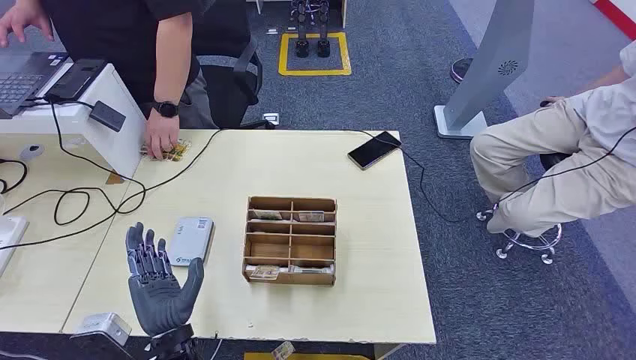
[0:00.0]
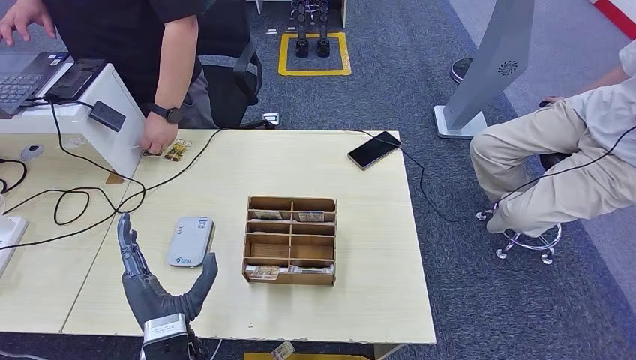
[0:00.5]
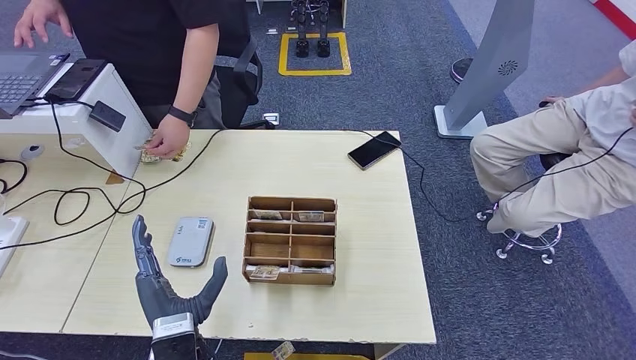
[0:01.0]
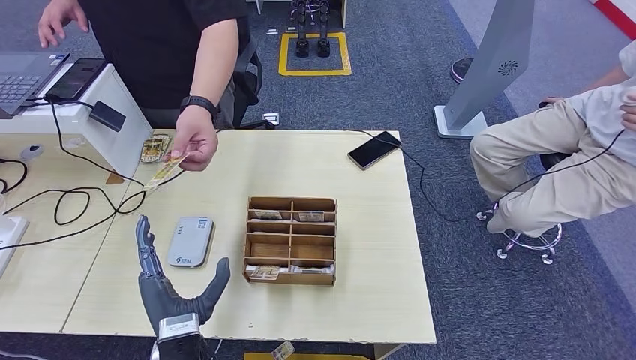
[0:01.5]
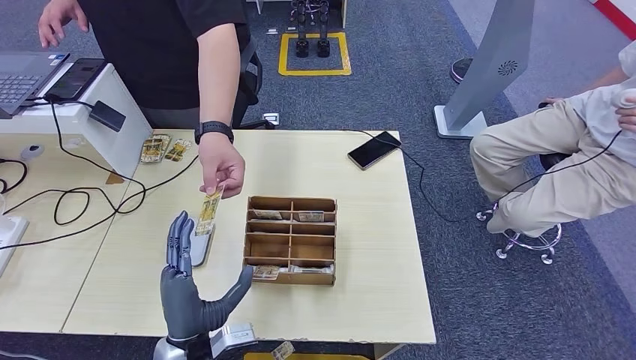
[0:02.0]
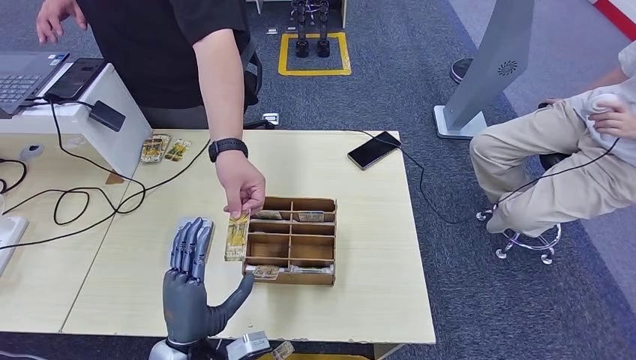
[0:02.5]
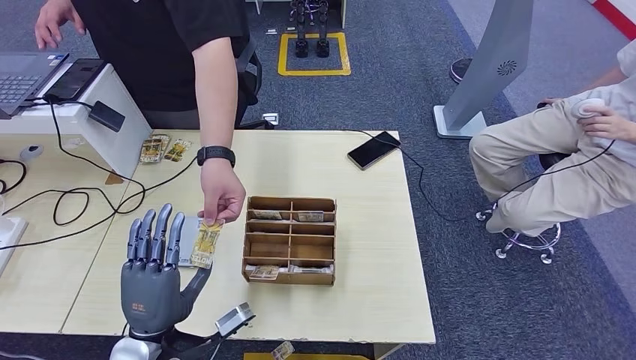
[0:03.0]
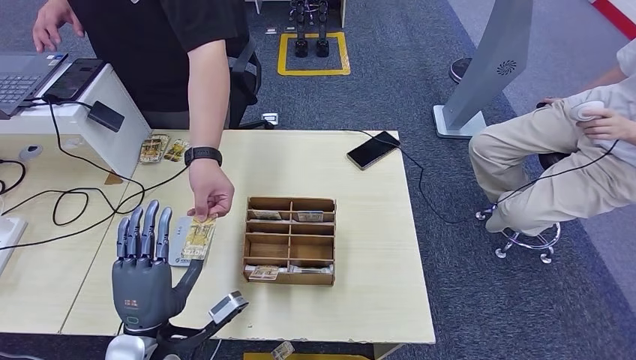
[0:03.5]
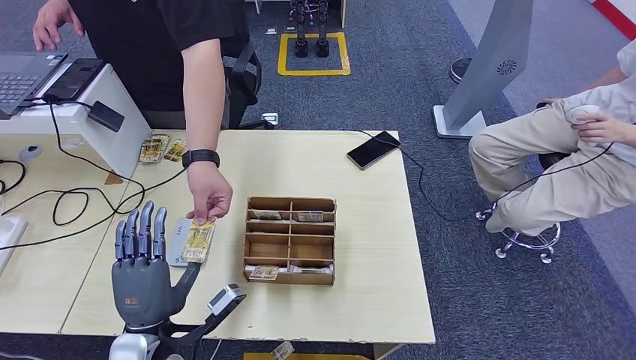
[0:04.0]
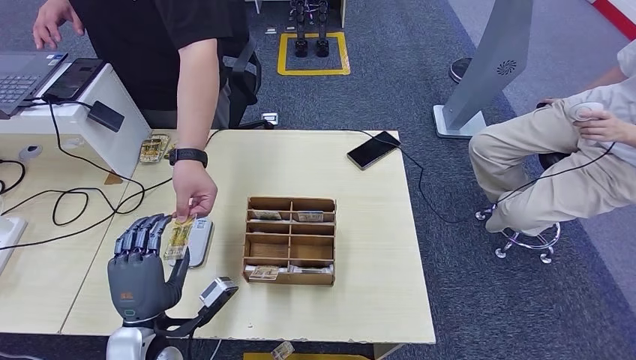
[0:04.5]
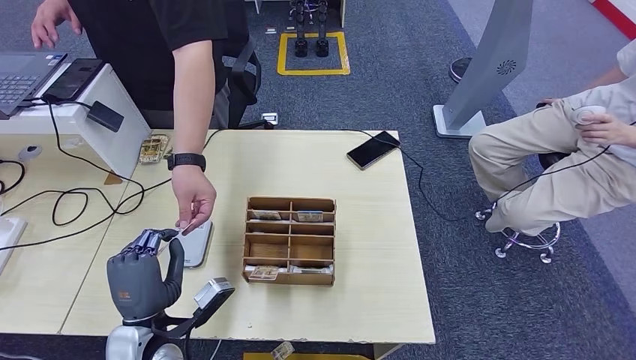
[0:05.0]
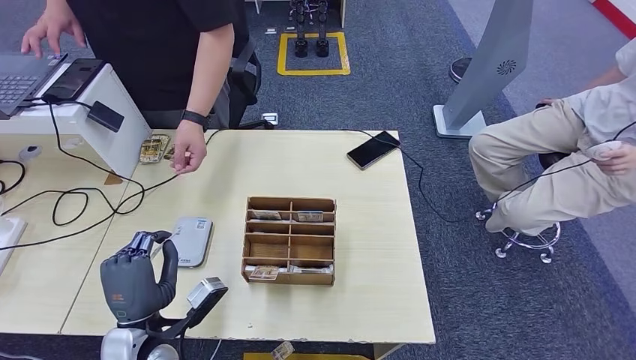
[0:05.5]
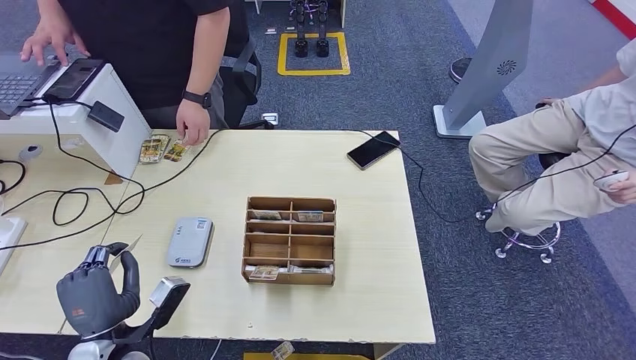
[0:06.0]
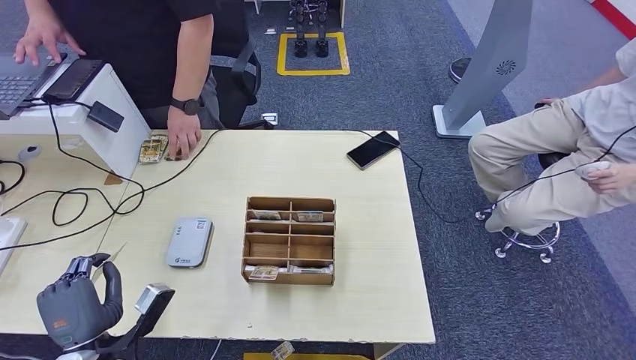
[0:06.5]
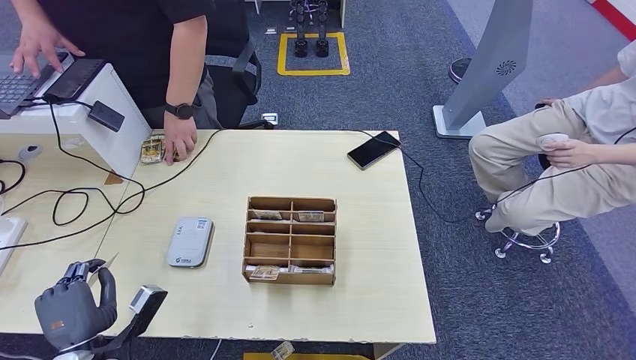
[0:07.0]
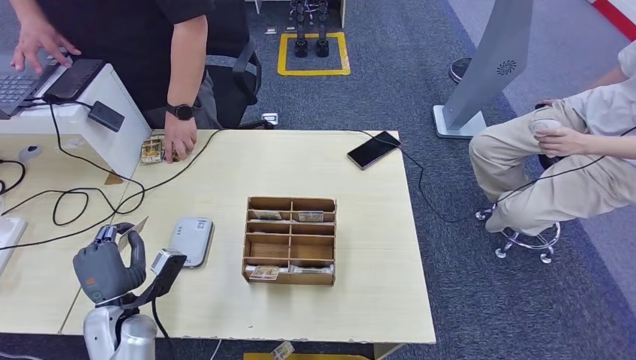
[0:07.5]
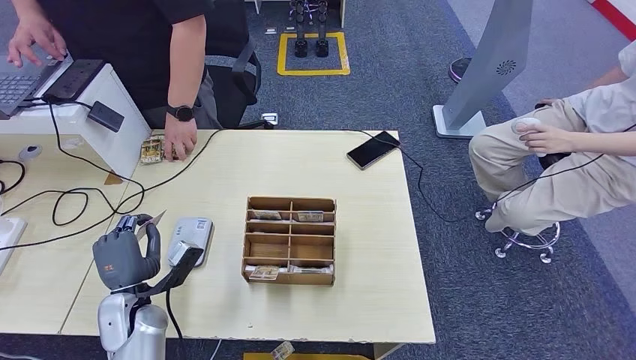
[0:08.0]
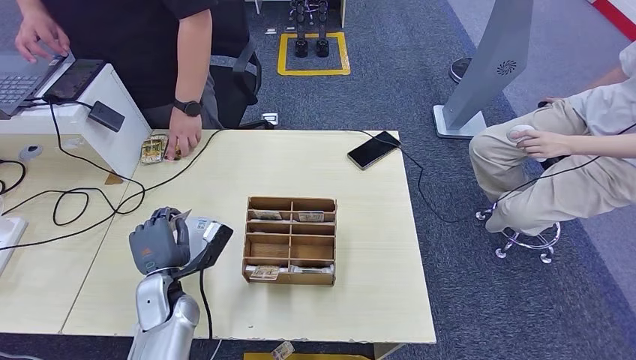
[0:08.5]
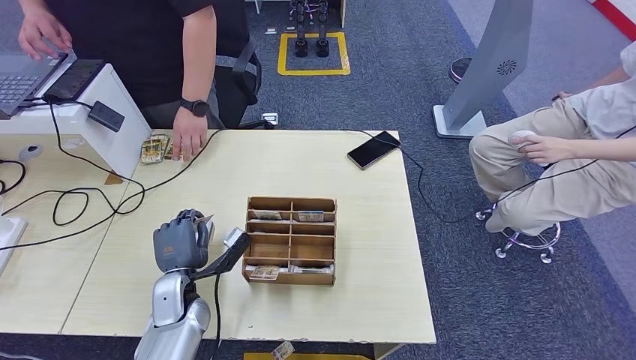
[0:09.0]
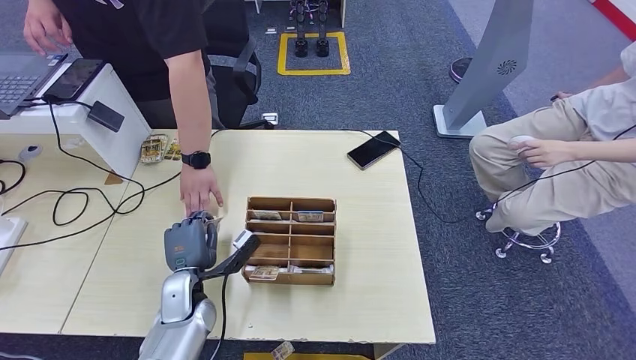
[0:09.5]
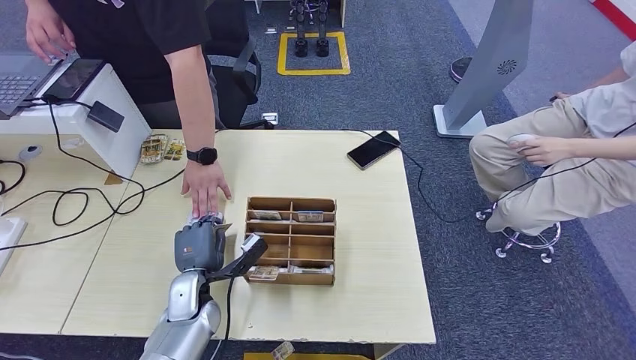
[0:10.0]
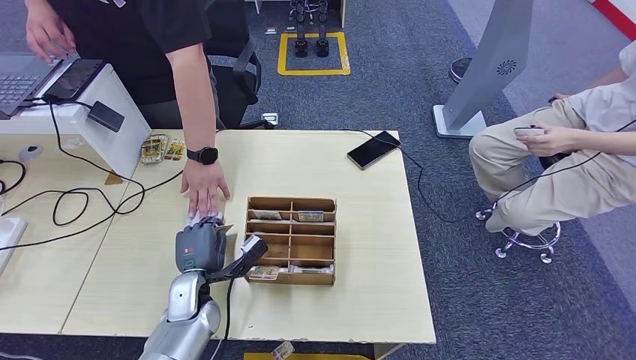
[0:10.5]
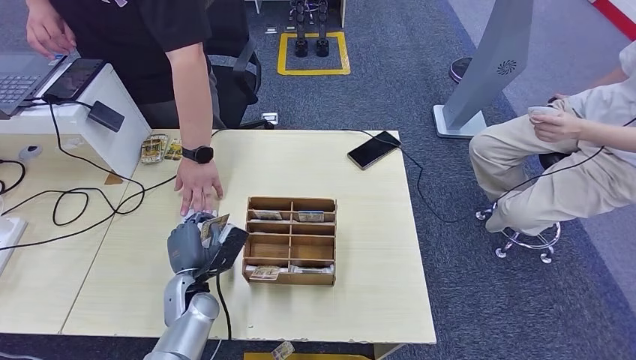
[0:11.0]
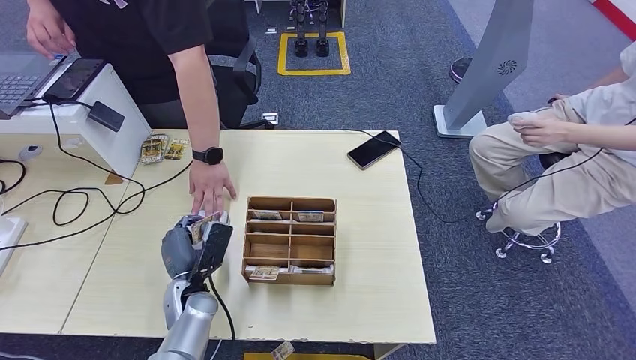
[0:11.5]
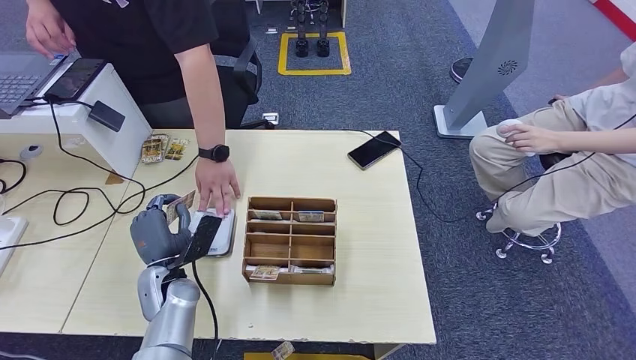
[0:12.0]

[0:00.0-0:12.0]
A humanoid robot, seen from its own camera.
Step, 0:00.0 to 0:05.5: Take the ID card from the person's hand.
0:02.0 to 0:04.0: The left hand goes some 5 cm to the left.
0:04.0 to 0:06.0: The left hand moves to the left, about 5 cm.
0:06.0 to 0:08.0: The left hand is displaced forward by some 10 cm.
0:08.0 to 0:10.0: The left hand moves to the right, roughly 10 cm.

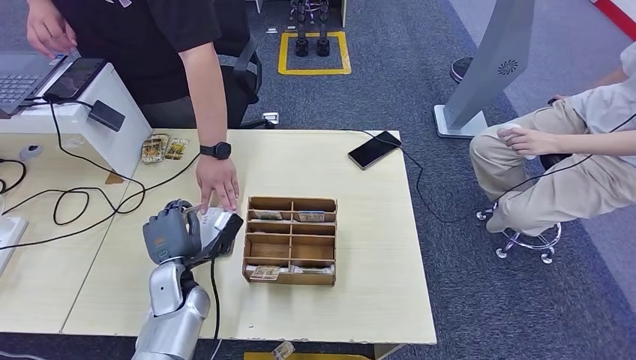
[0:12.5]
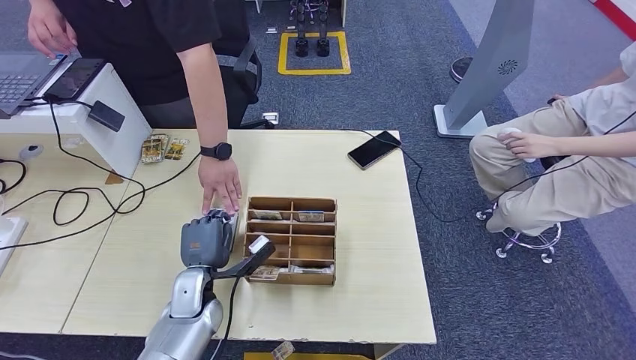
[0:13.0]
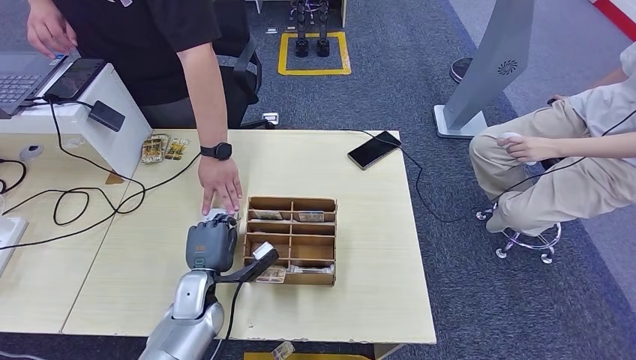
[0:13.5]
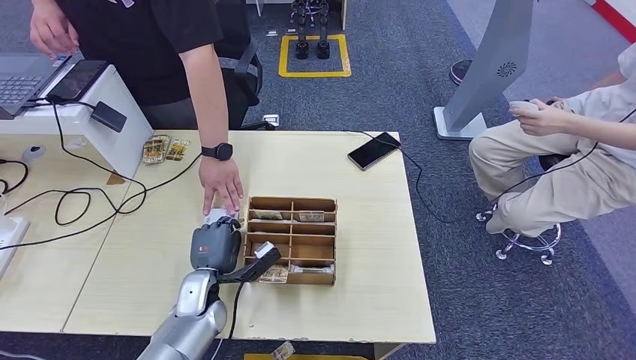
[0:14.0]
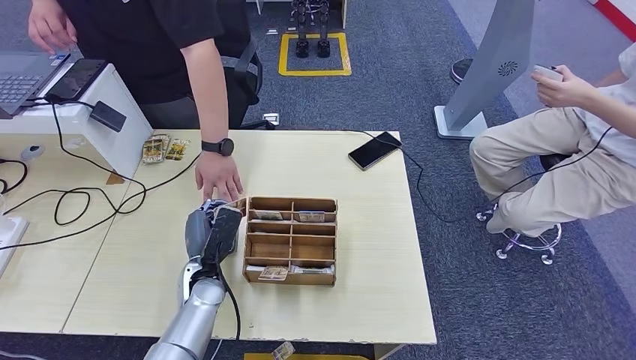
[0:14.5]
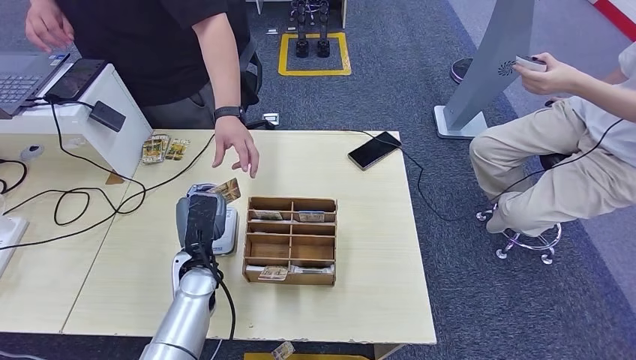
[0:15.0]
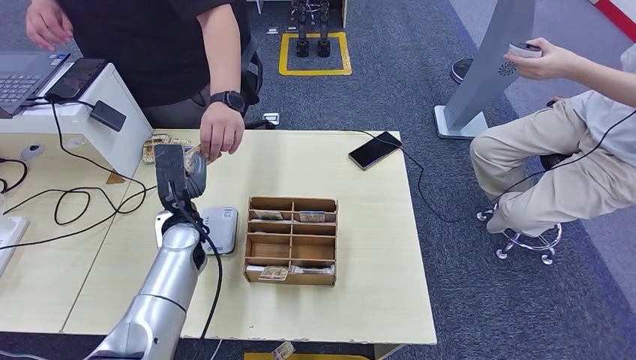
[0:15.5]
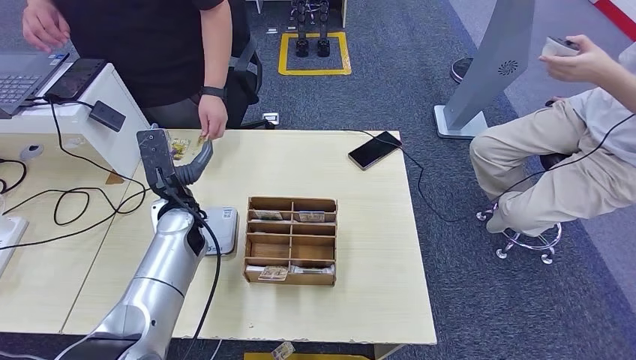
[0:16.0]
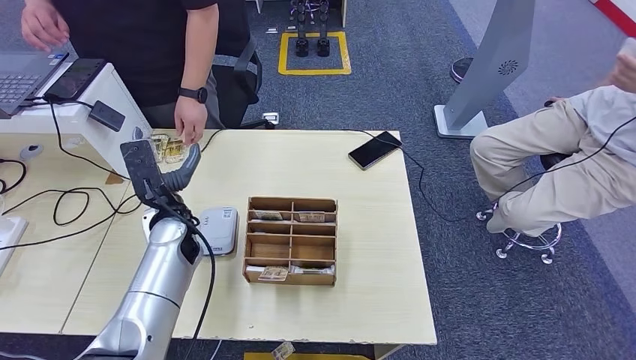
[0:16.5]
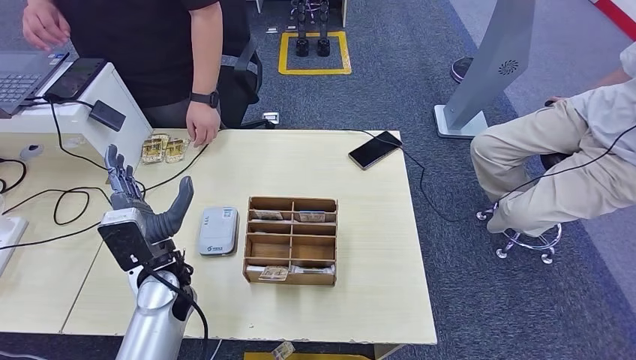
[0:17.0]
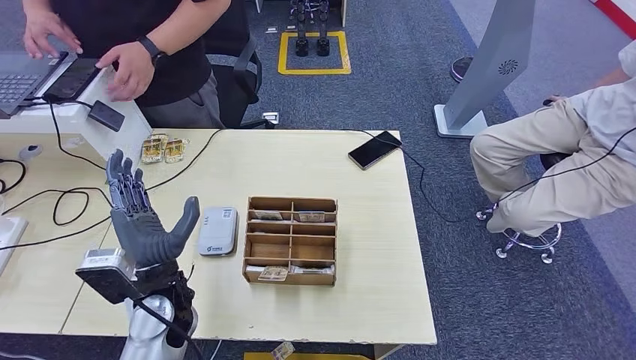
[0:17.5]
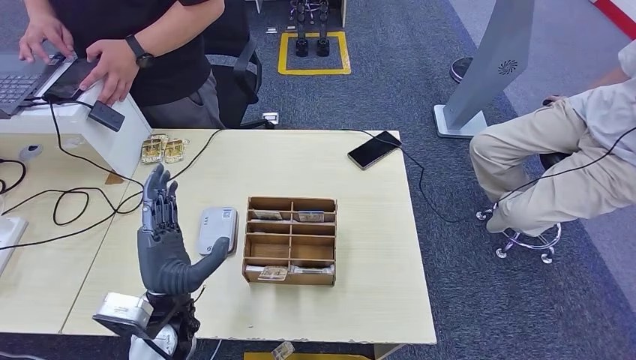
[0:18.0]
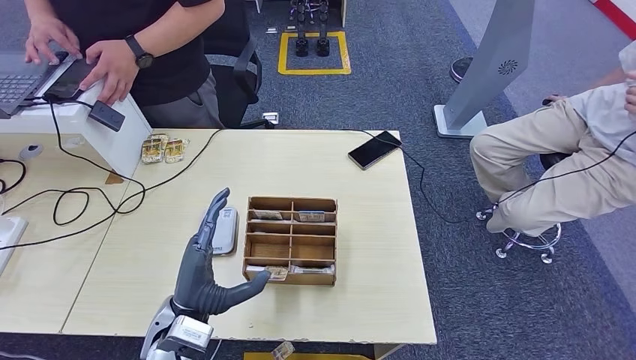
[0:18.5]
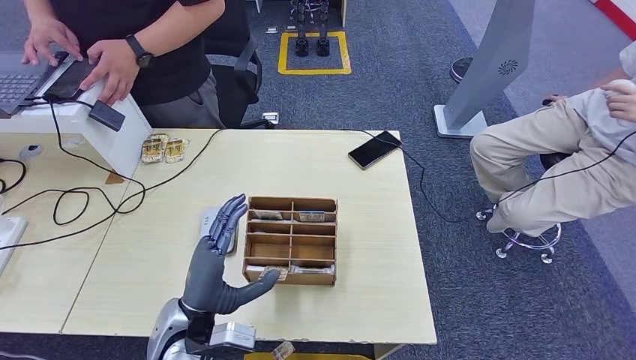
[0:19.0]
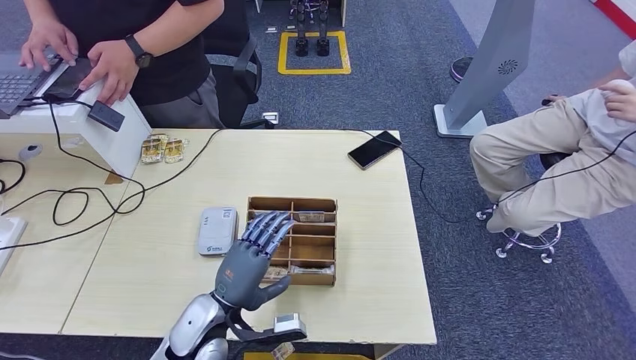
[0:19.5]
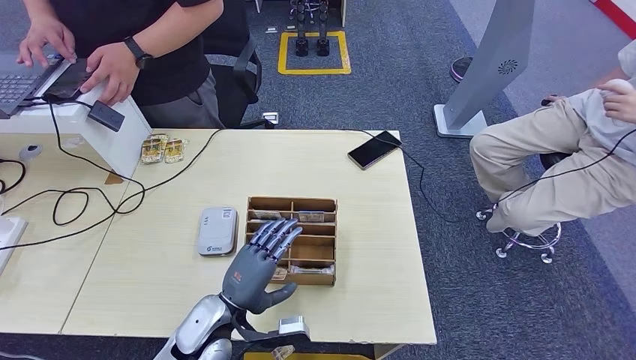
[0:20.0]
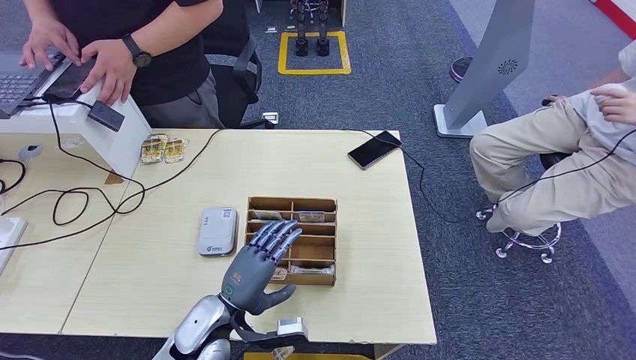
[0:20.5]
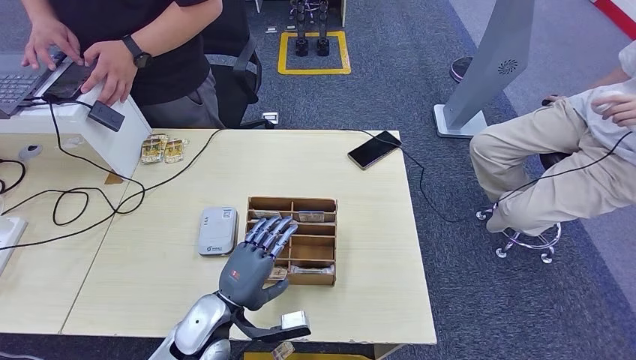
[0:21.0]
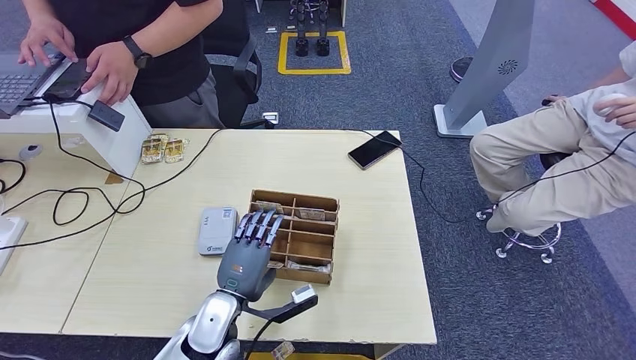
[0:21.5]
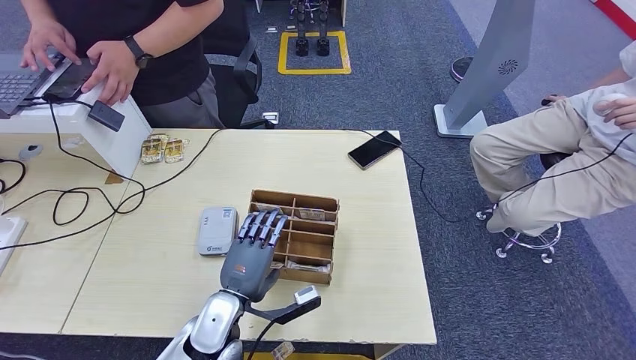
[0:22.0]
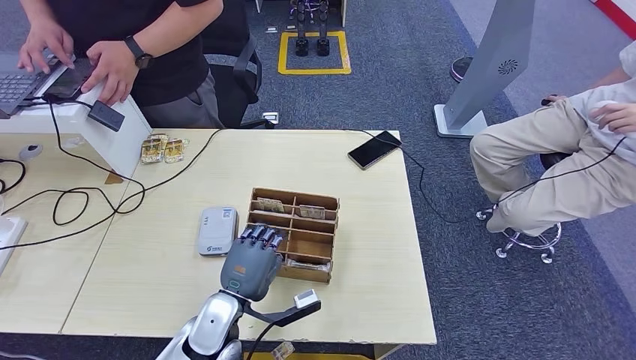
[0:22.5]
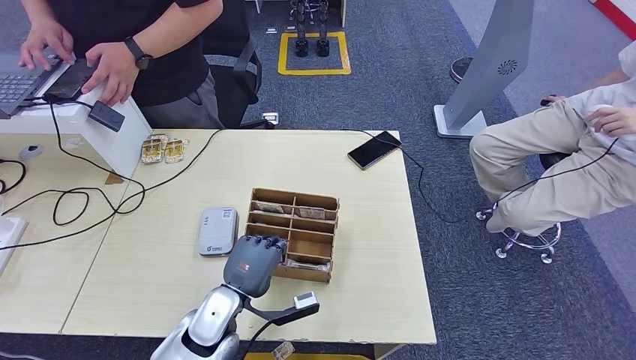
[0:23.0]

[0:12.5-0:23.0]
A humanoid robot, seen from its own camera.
Step, 0:14.5 to 0:15.5: Hand the ID card to the person.
0:14.5 to 0:16.5: The left hand heads upward and forward, covering about 15 cm.
0:16.5 to 0:19.0: The left hand shifts roughly 20 cm backward.
0:19.0 to 0:21.0: The left hand ends up about 5 cm from where it was.
